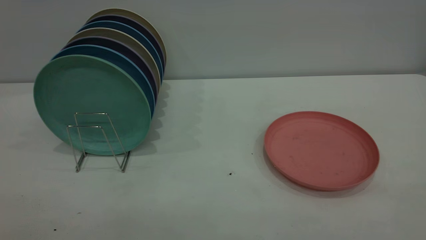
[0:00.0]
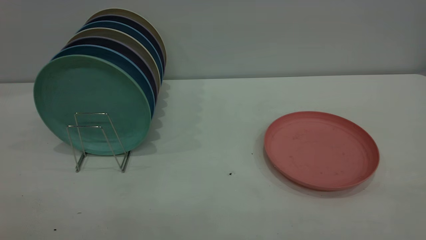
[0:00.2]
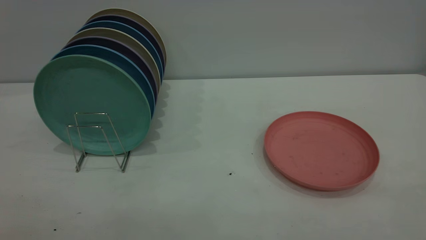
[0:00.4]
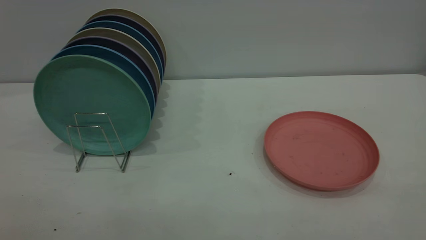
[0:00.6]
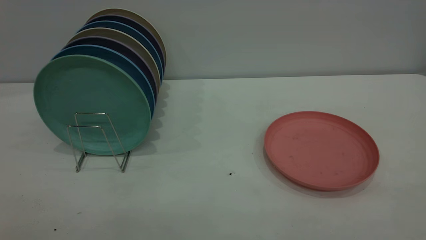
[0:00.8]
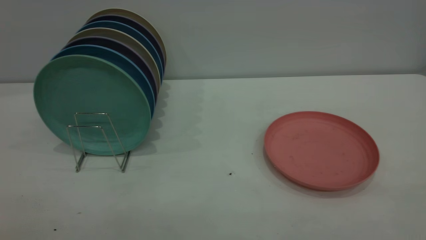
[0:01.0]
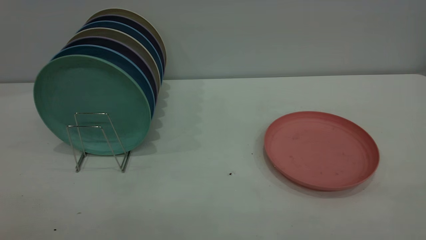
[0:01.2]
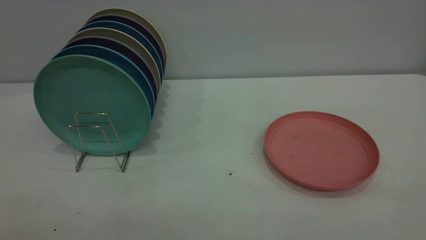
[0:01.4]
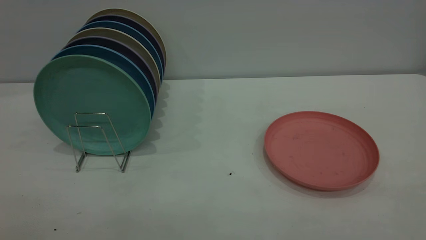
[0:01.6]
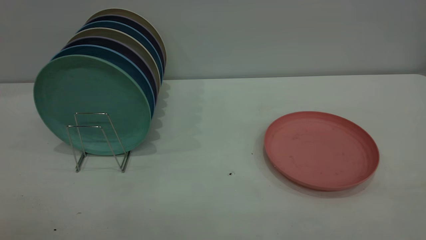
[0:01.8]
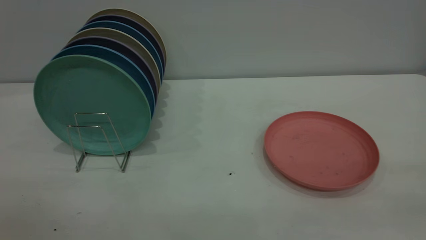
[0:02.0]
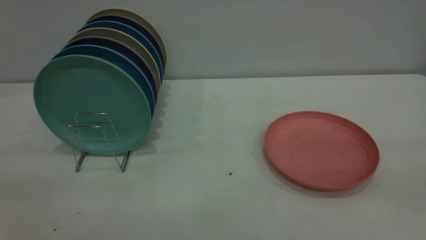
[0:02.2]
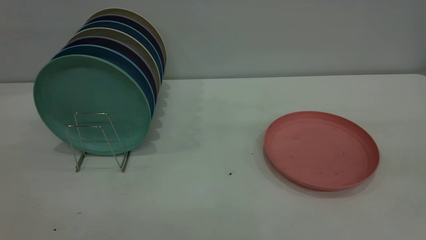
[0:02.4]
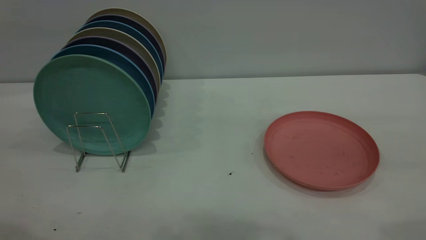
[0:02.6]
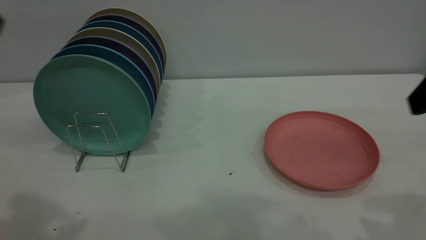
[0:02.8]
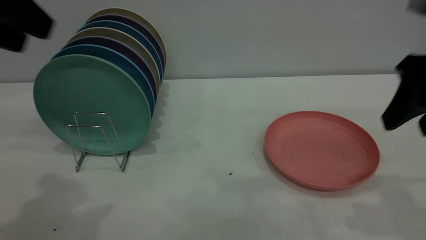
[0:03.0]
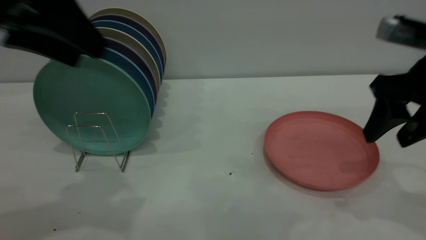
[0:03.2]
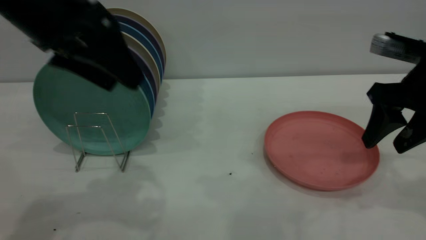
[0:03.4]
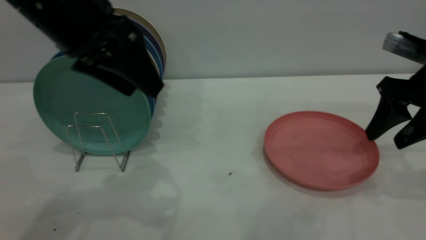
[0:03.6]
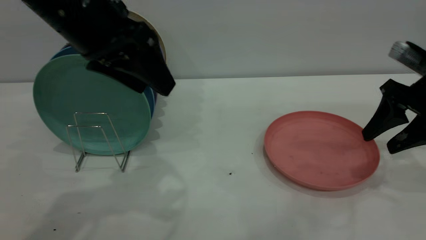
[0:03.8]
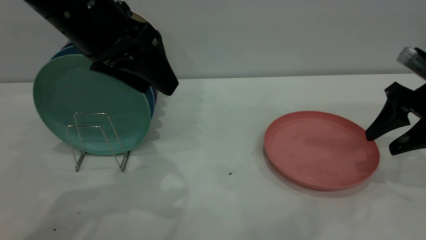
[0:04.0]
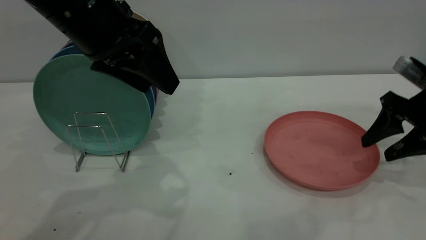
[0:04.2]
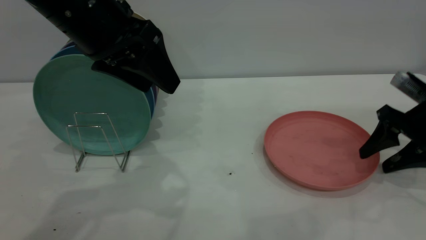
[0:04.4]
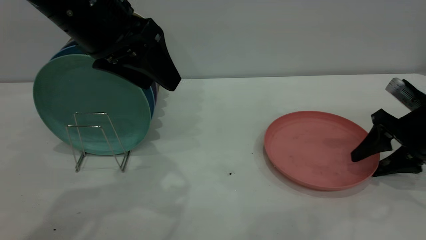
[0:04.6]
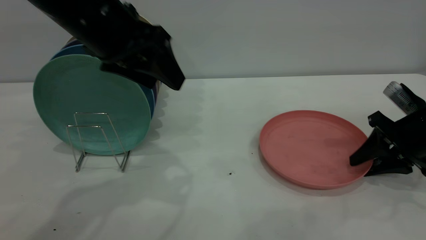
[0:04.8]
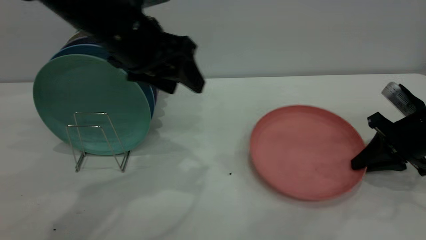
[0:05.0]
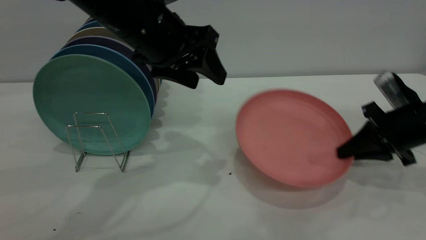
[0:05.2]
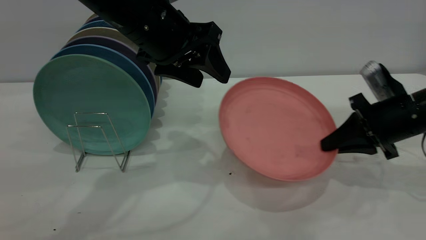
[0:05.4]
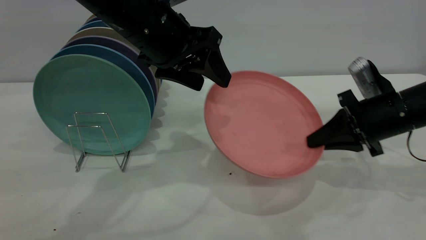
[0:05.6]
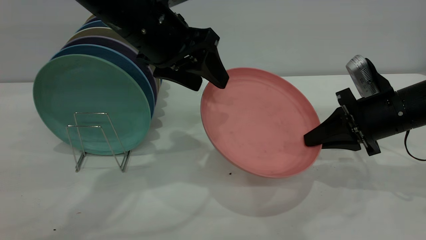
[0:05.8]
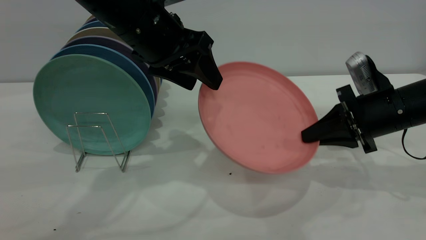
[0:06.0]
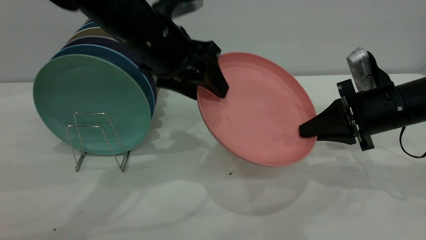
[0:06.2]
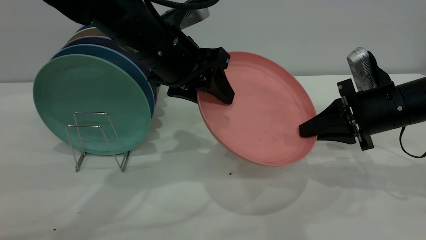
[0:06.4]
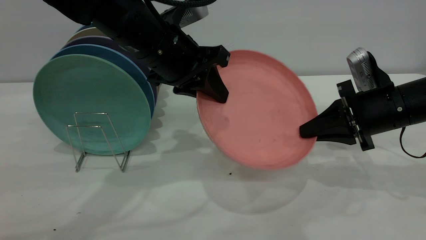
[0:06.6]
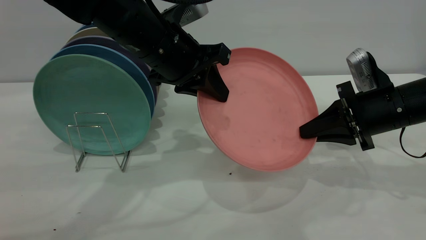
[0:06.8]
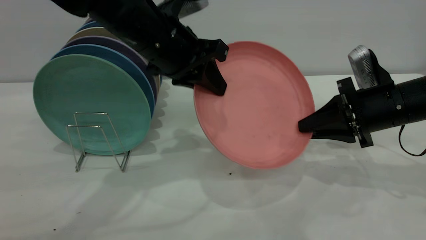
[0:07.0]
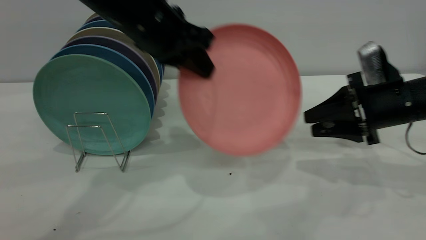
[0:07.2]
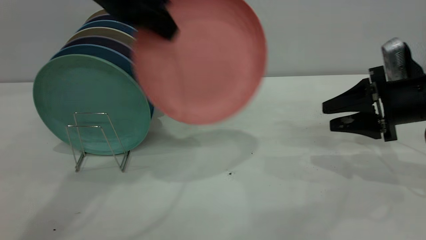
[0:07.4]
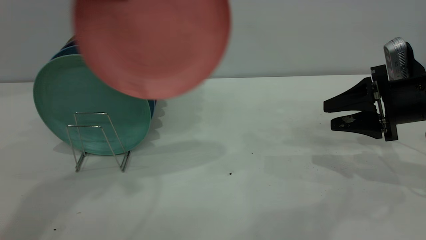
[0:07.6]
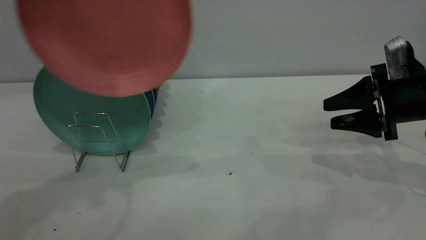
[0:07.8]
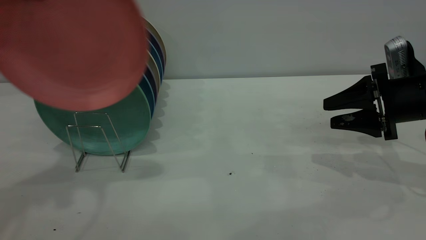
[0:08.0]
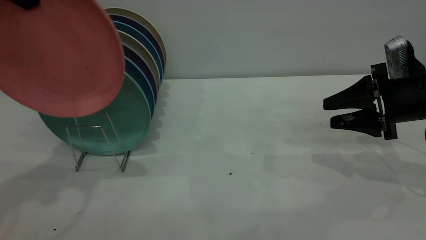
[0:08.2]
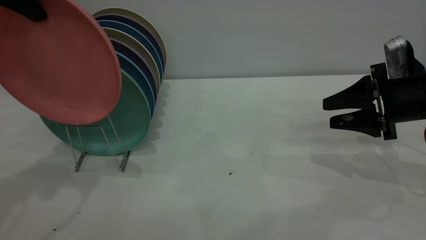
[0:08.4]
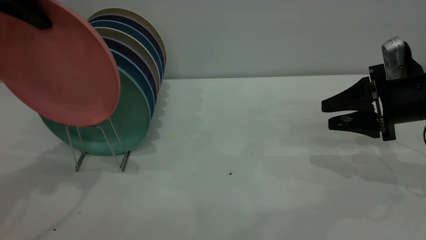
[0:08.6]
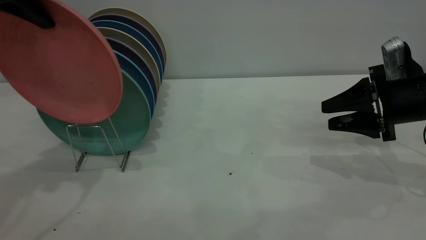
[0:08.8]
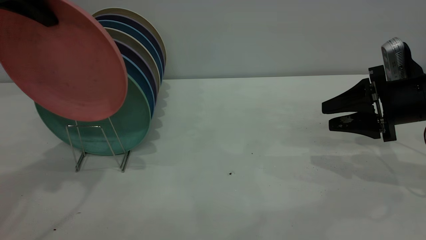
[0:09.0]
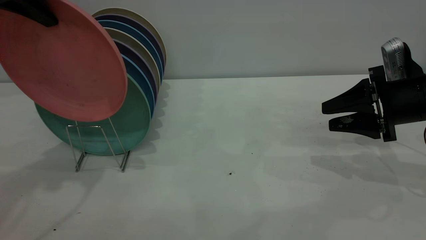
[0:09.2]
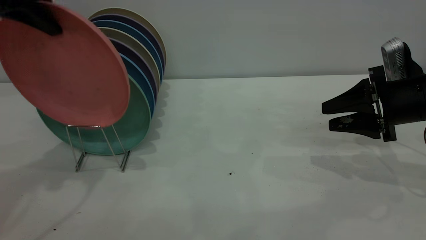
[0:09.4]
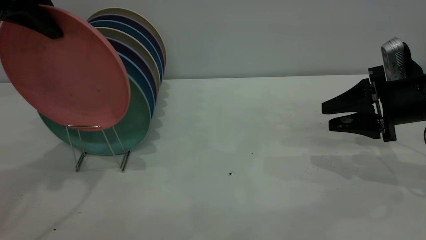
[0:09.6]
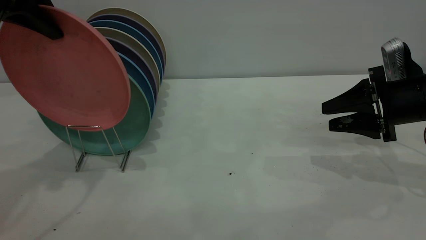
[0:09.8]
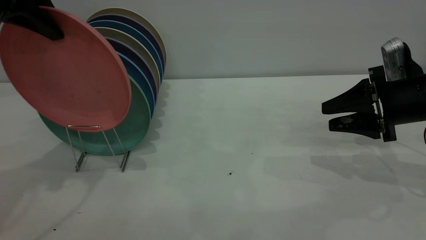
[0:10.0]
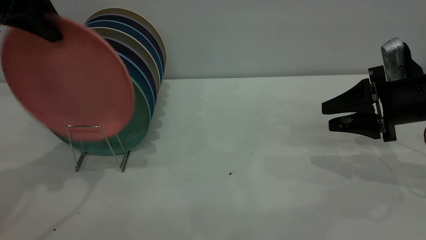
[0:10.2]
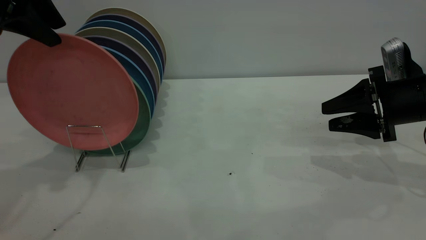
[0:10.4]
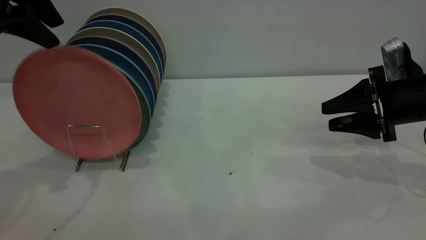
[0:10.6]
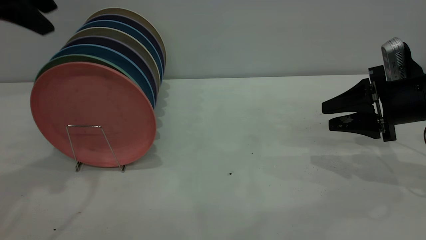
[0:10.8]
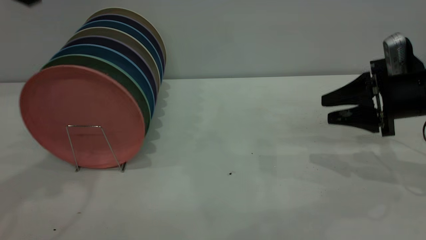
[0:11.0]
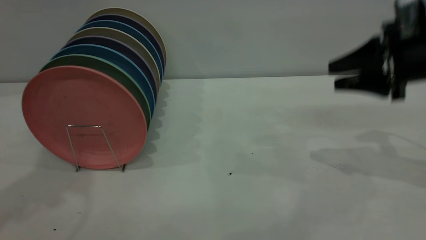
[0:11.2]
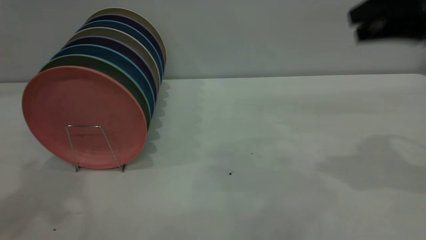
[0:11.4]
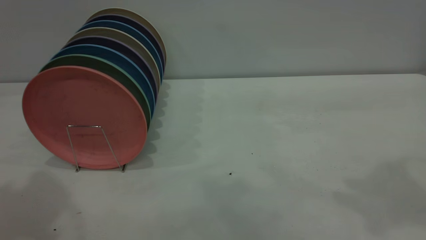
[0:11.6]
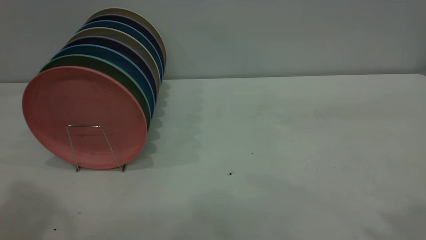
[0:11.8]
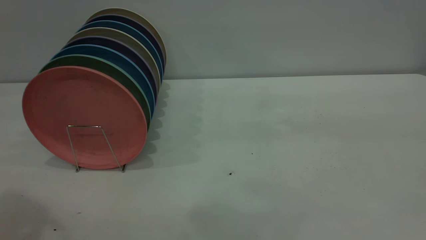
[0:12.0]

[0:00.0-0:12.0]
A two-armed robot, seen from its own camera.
Task of the whole recording: the right gripper grasp the pink plate, the right gripper pass the pink plate to the left gripper, and the left gripper place the pink plate on the plate rack.
Step, 0:00.0 to 0:05.2: Pick up the plate with the right gripper.
Step, 0:05.4 to 0:07.0: Pass the plate from the right gripper to the left gripper.
Step, 0:07.4 to 0:10.8: Place the plate on the shelf.
0:00.0 to 0:01.6: Both grippers stay put.
0:01.6 to 0:03.0: Both grippers travel together forward, some 30 cm.
0:03.0 to 0:04.4: The right gripper moves downward, forward and to the right, approximately 20 cm, while the left gripper goes approximately 15 cm to the right, downward and forward.
0:04.4 to 0:06.0: The right gripper moves to the left, roughly 10 cm, and closes. Meanwhile the left gripper goes roughly 5 cm forward.
0:06.0 to 0:07.6: The left gripper heads upward and to the left, covering about 15 cm, and closes its fingers, while the right gripper opens.
0:07.6 to 0:09.0: The left gripper shifts approximately 10 cm to the left.
0:09.0 to 0:10.4: The left gripper opens its fingers.
0:10.4 to 0:12.0: The right gripper travels upward and backward by approximately 50 cm, while the left gripper is displaced backward and upward by roughly 20 cm.
